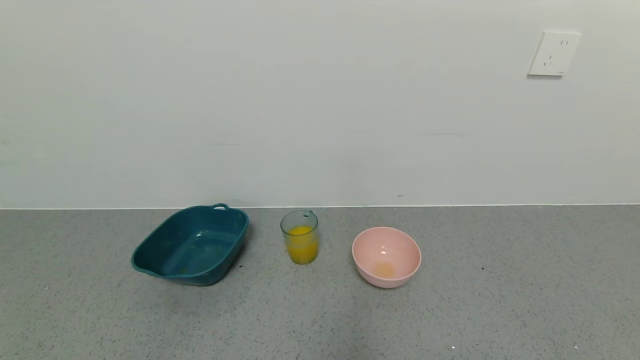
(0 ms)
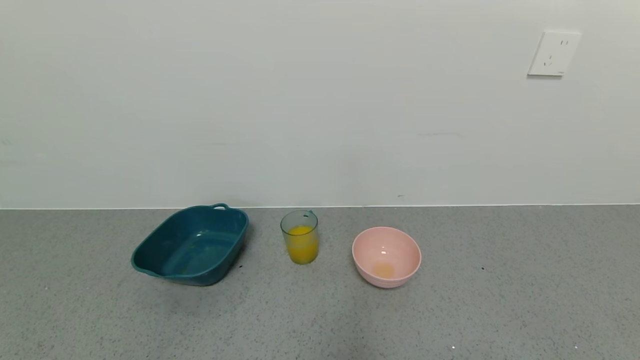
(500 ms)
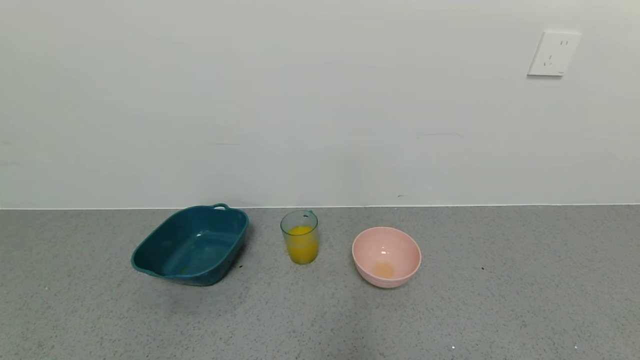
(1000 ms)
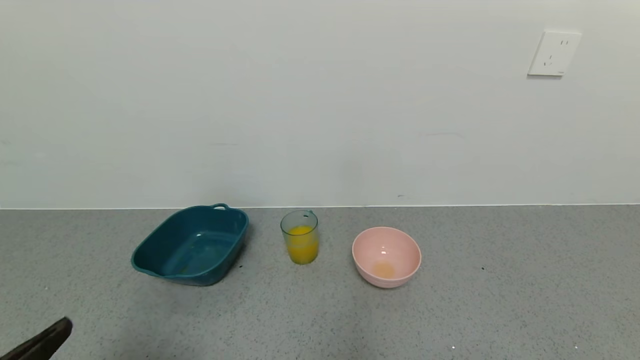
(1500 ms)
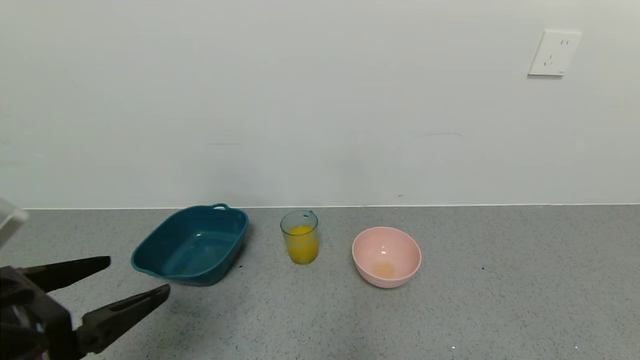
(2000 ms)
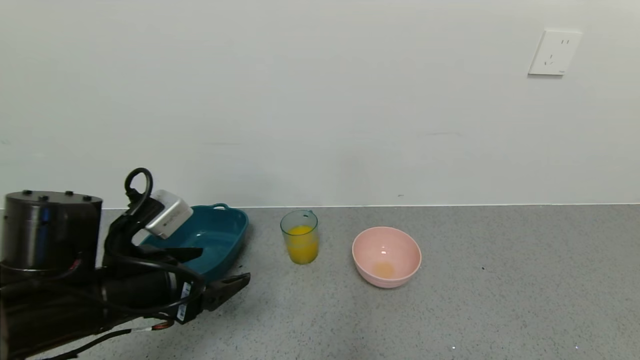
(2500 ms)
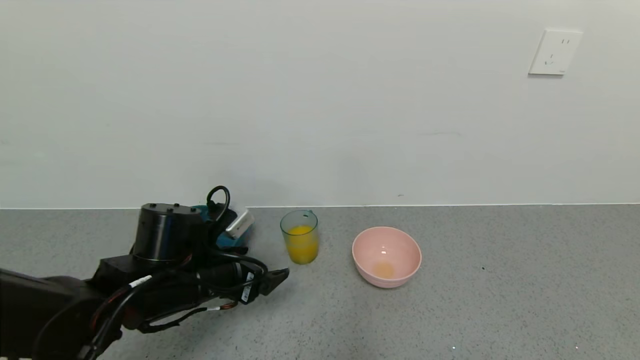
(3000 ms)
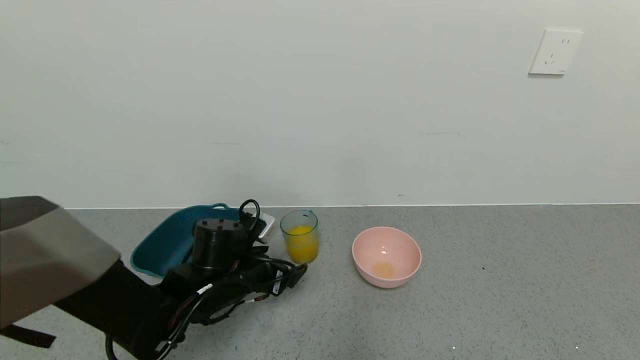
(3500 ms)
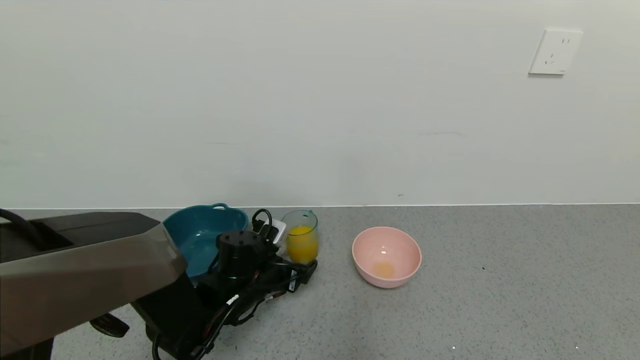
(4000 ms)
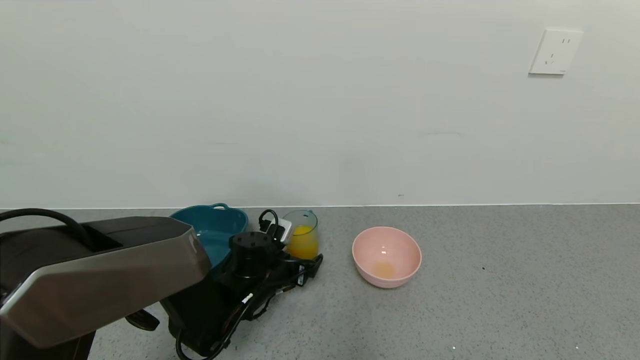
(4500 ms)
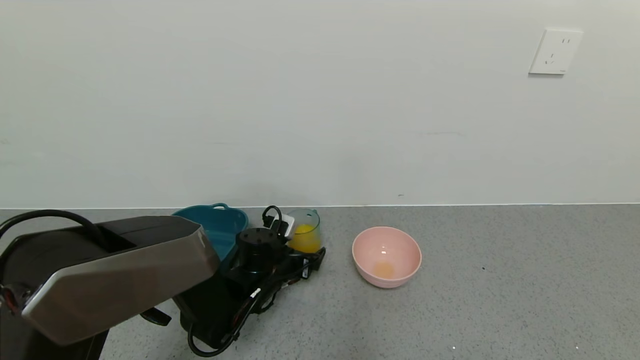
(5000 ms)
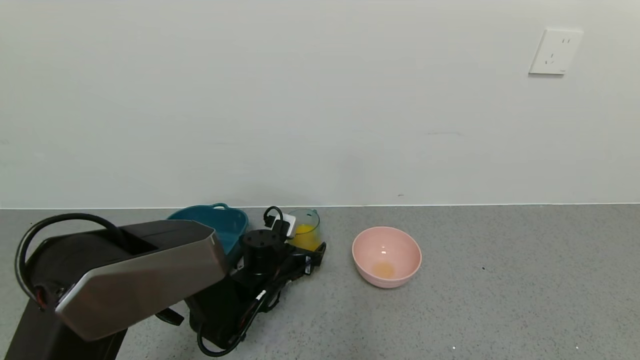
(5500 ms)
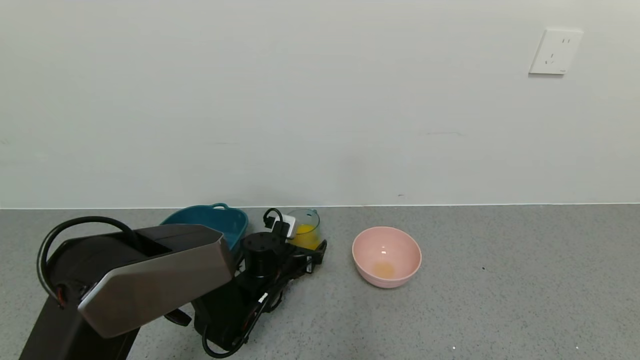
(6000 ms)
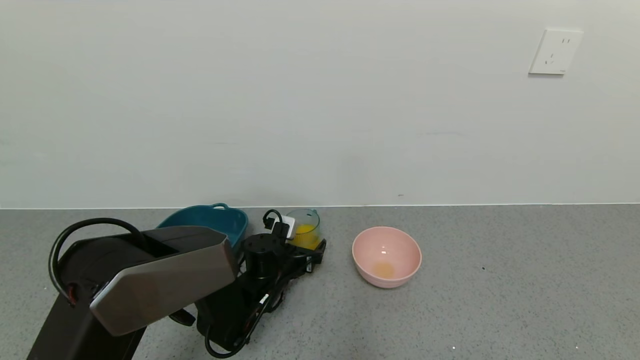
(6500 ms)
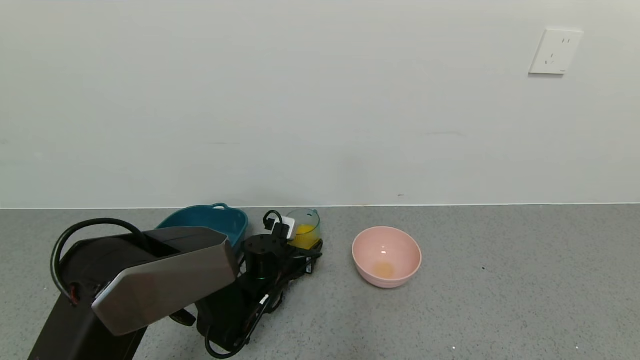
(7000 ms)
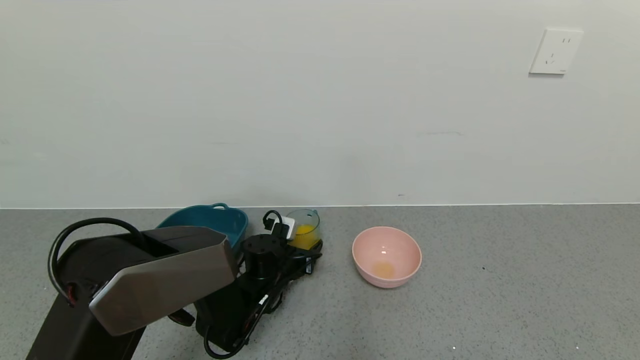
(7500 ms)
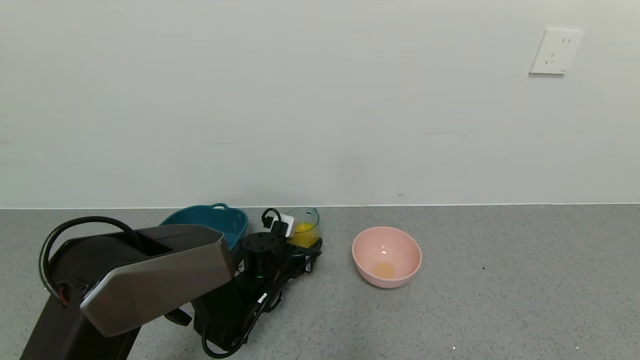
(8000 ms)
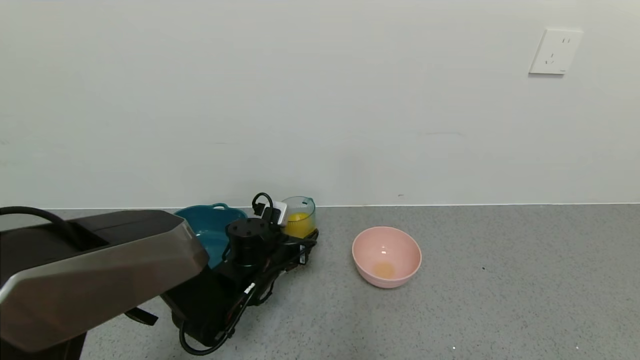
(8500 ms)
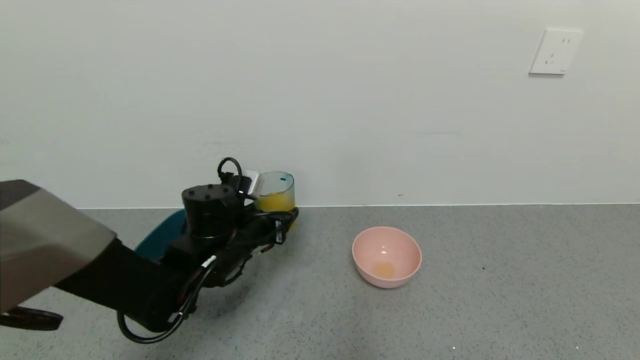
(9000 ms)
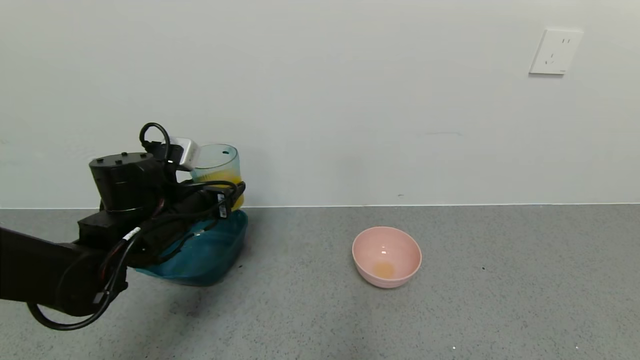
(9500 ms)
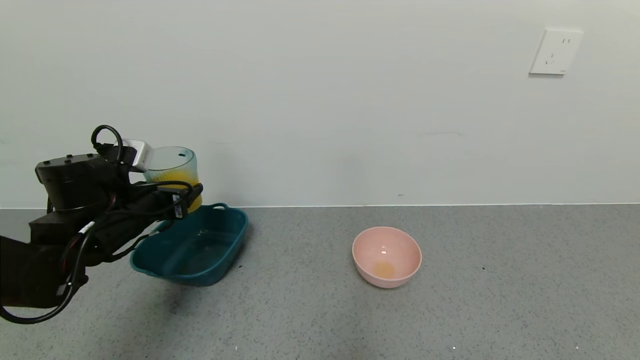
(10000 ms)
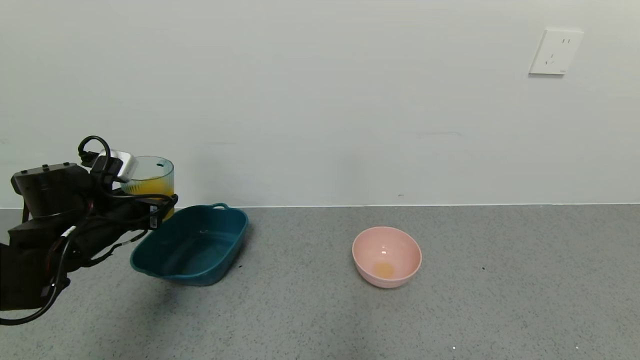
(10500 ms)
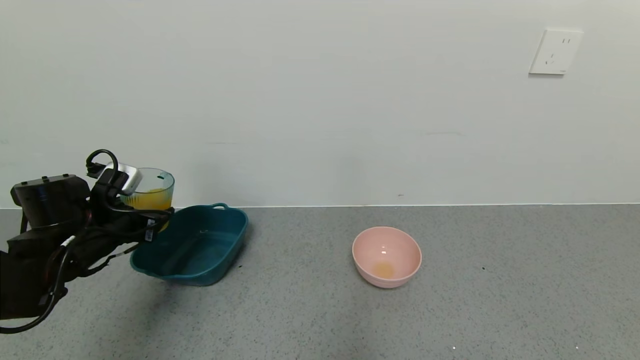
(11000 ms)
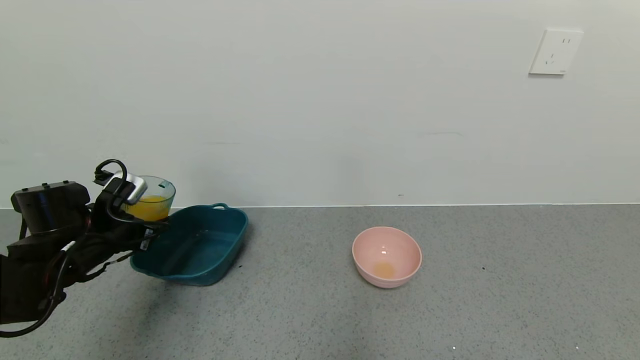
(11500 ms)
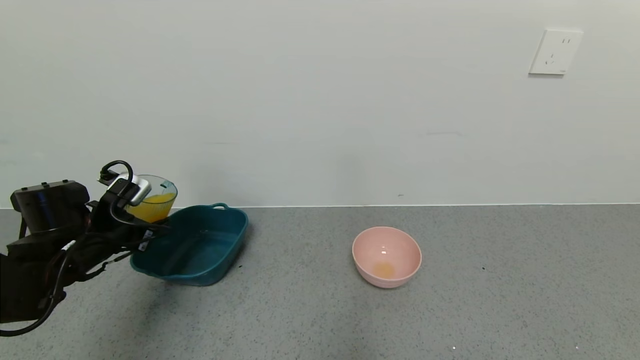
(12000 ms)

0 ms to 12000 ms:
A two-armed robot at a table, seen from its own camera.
Task of the whole recording: use a gripper to pick up the cup and pour the liquid into a bowl or tray.
Step, 0 ms to 7000 ms: Grasp the glass of orange juice with the left gripper.
0 ms to 2000 ms: The left gripper shifts roughly 20 cm upward and forward.
2000 ms to 4000 ms: The left gripper is displaced forward, downward and to the right by some 30 cm.
4000 ms to 6000 ms: The left gripper moves roughly 5 cm.
8000 ms to 10000 ms: The left gripper travels to the left and upward by some 25 cm.
10000 ms to 12000 ms: The left gripper moves roughly 5 cm.

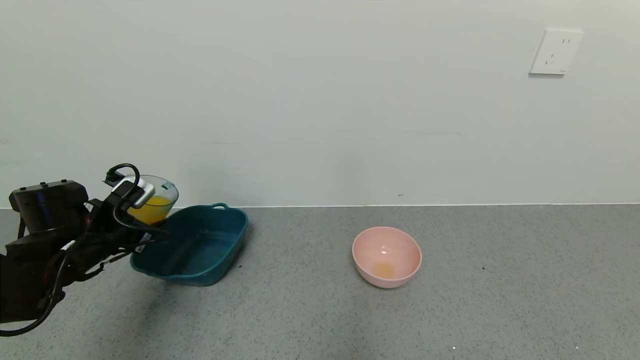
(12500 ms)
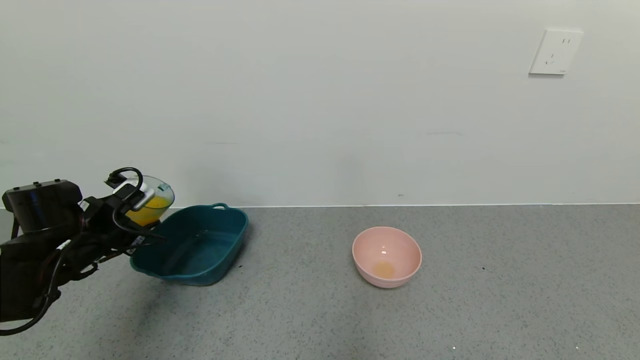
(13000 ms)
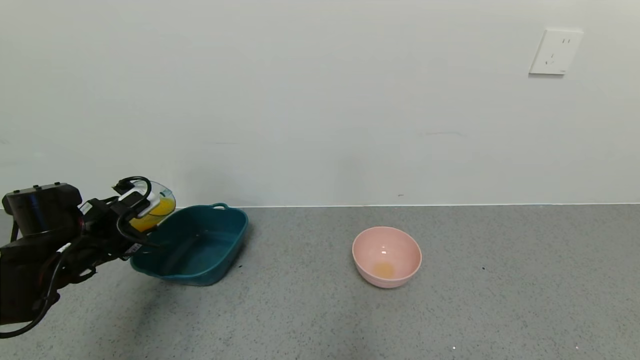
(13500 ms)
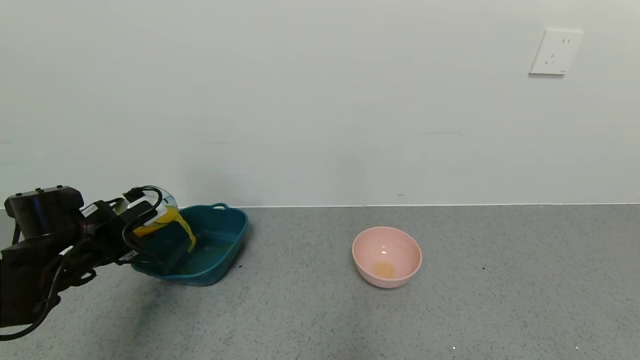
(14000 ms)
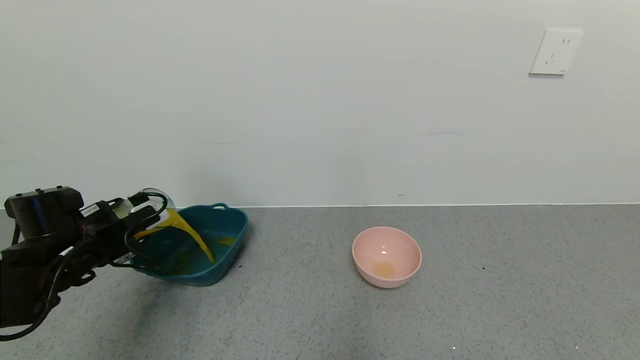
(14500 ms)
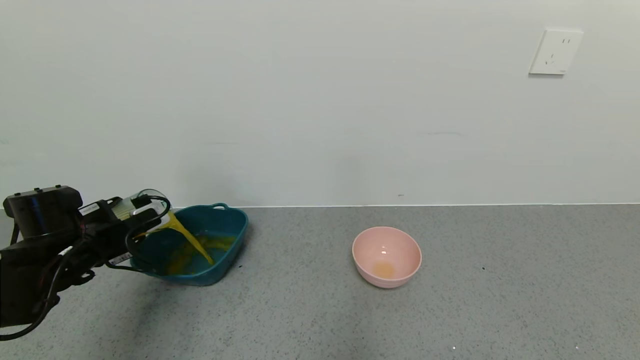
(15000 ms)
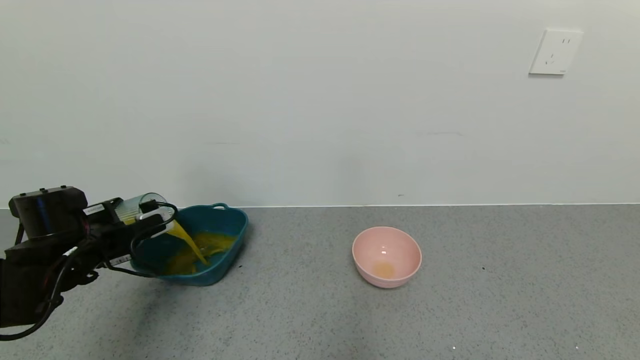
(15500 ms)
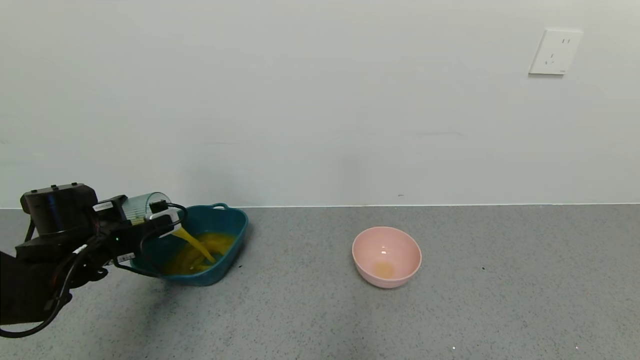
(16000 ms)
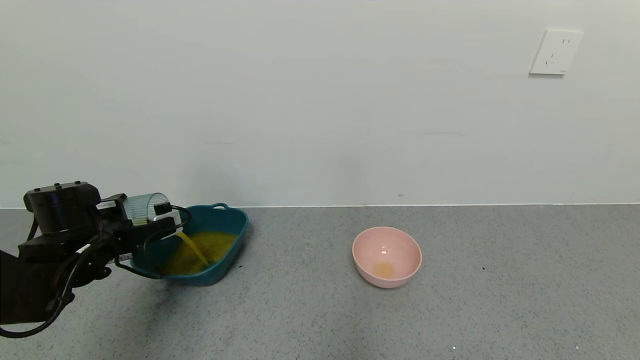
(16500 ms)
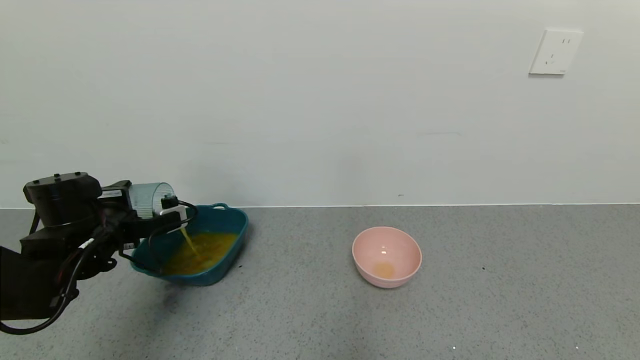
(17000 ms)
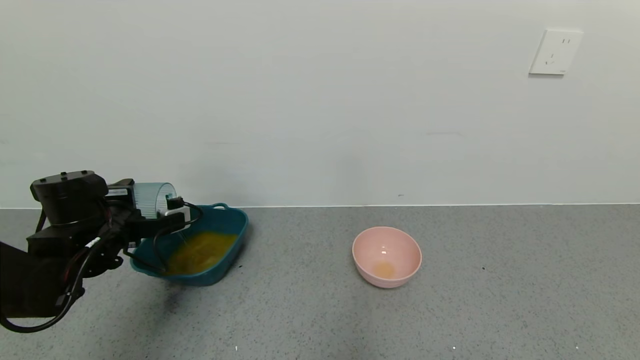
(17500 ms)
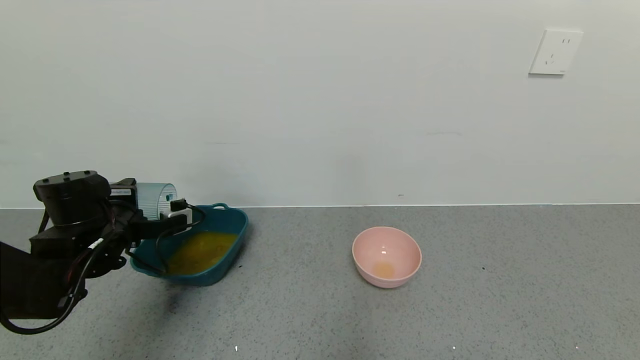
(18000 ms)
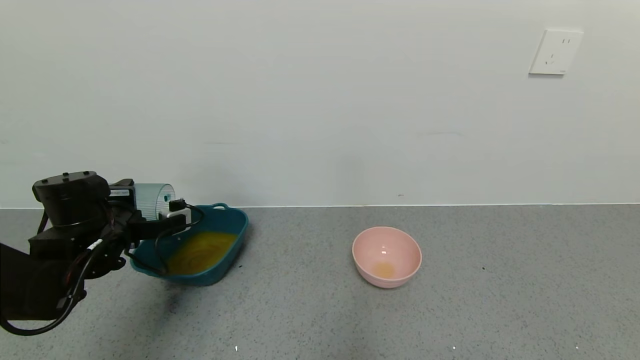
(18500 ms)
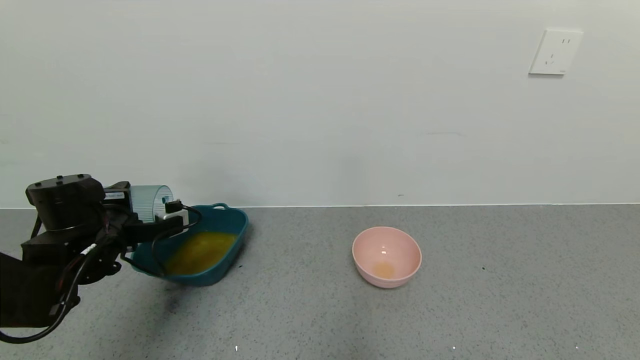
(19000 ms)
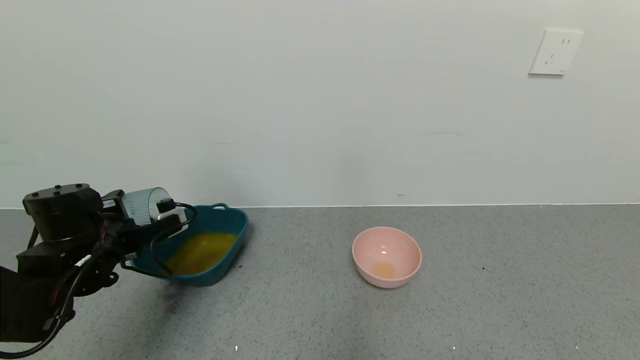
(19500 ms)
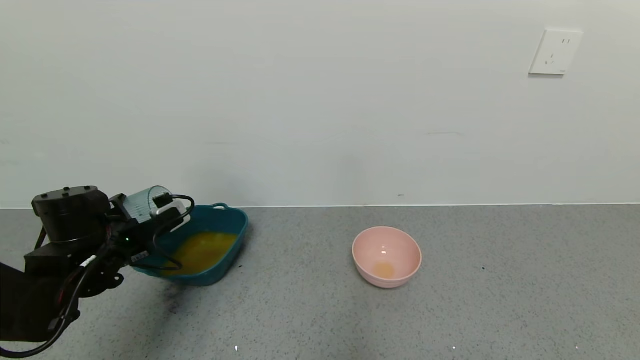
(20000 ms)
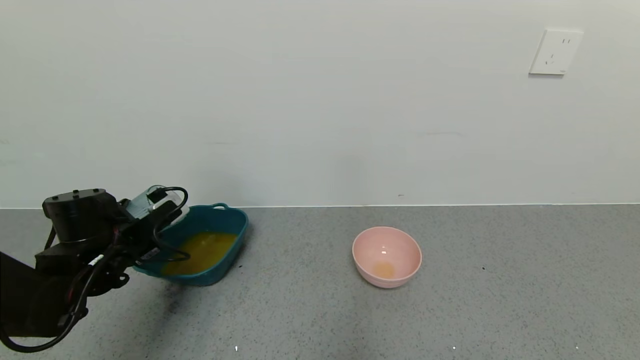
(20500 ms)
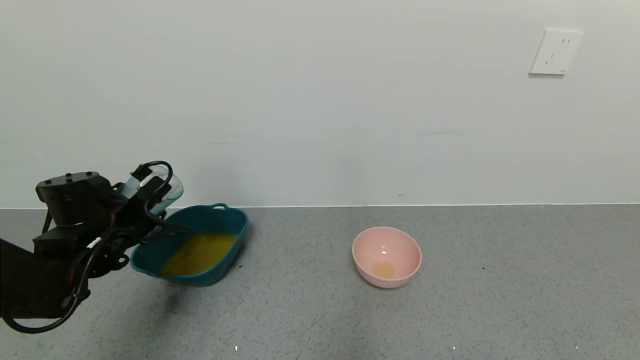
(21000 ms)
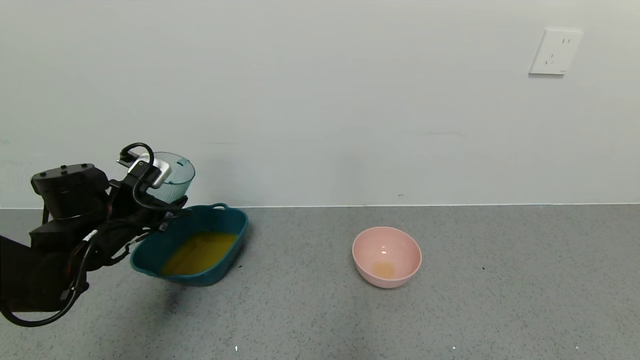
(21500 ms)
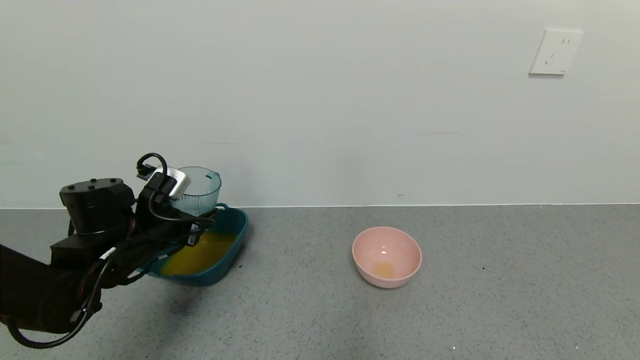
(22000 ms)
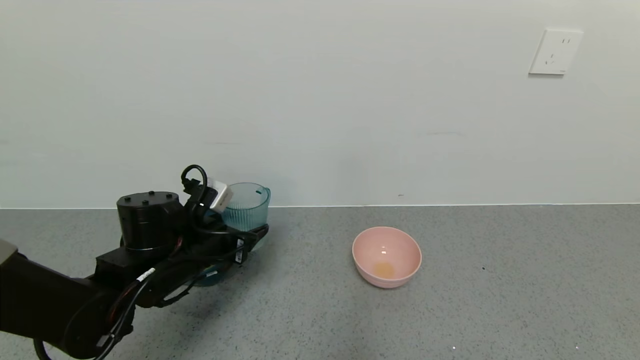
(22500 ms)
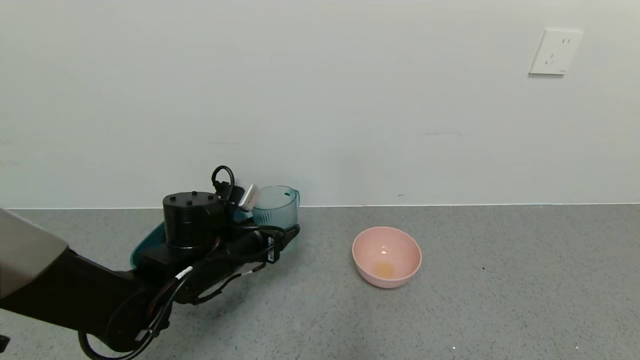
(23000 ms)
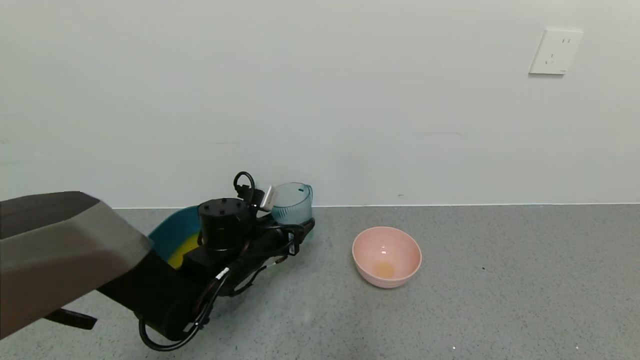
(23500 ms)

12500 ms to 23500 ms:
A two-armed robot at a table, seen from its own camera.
Task of the whole recording: use a gripper to pick up the cup and pour the liquid into a bowl or tray.
Step, 12500 ms to 19500 ms: Pour the orange juice into the green bowl with the left gripper.
14500 ms to 16000 ms: There are only small adjustments of the grippers.
16000 ms to 18000 ms: The grippers move only a little.
21500 ms to 23500 ms: The left gripper heads to the right, covering roughly 15 cm.
